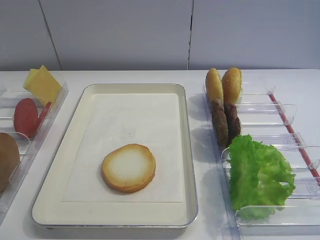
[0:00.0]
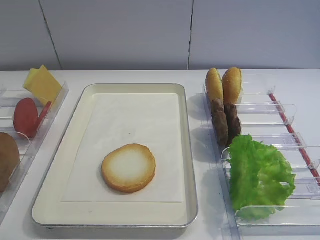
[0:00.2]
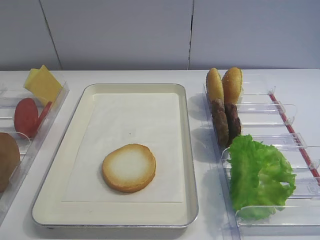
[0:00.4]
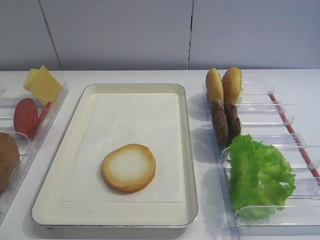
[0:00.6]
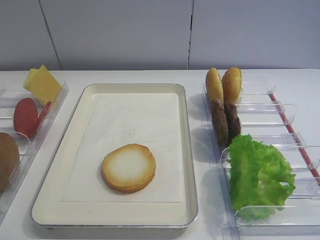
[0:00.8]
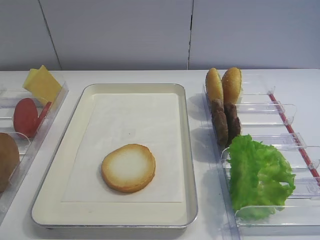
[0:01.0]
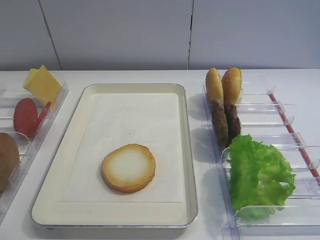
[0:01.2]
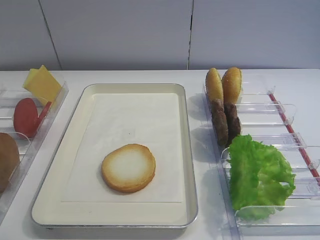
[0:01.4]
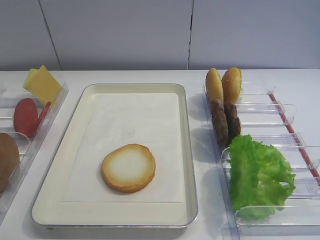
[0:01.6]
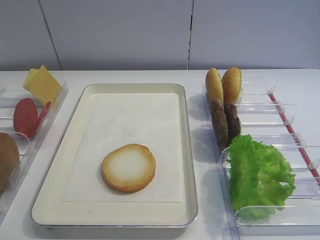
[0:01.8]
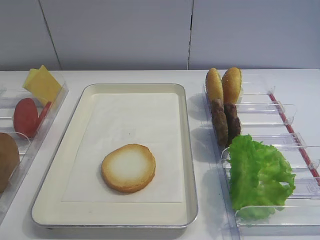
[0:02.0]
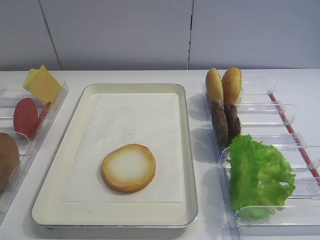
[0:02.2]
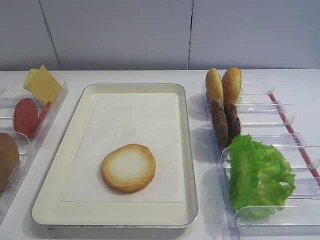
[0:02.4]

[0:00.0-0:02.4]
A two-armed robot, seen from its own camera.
0:01.2 to 0:02.4: Neither gripper changes place.

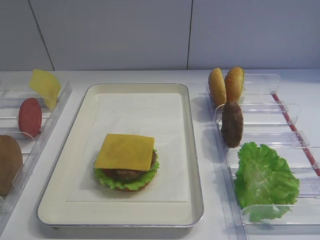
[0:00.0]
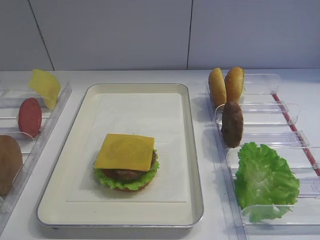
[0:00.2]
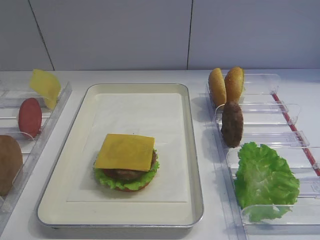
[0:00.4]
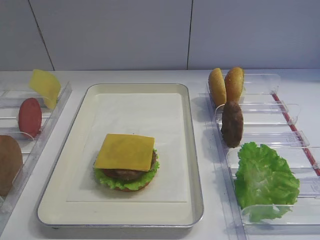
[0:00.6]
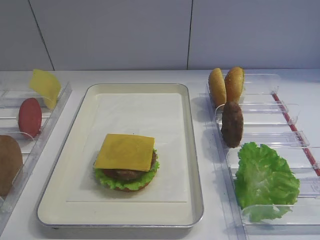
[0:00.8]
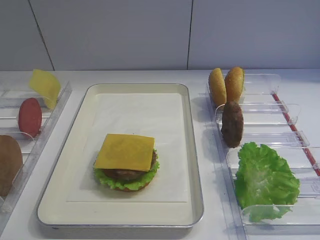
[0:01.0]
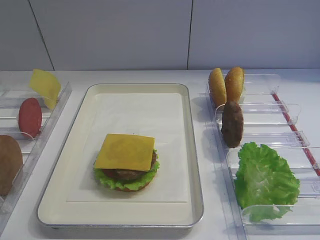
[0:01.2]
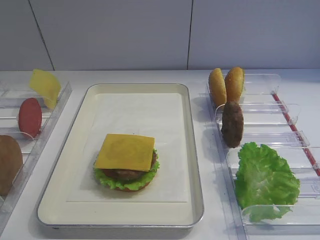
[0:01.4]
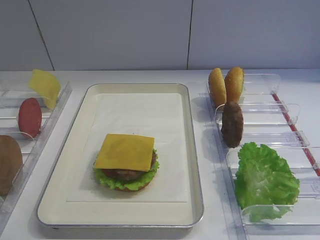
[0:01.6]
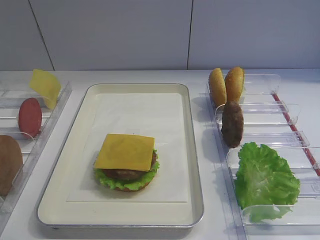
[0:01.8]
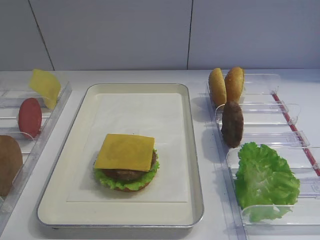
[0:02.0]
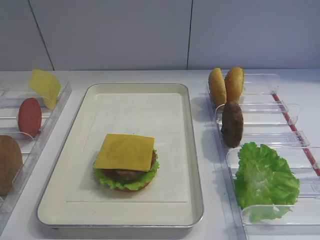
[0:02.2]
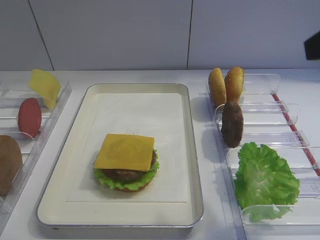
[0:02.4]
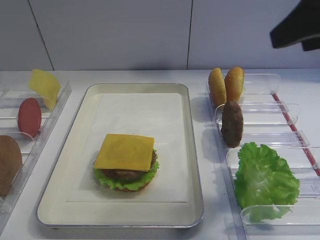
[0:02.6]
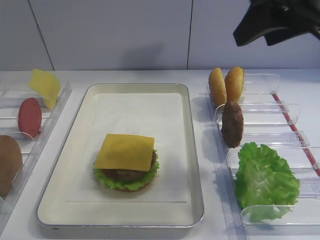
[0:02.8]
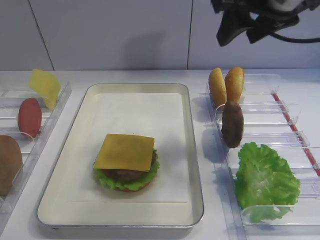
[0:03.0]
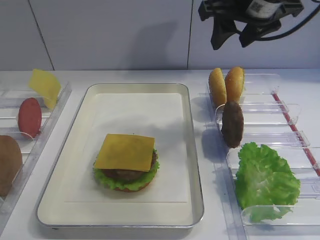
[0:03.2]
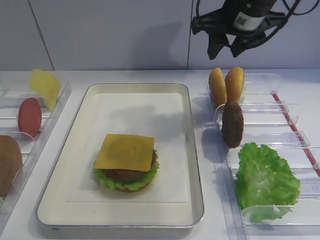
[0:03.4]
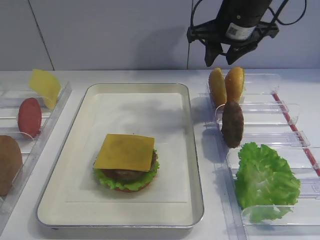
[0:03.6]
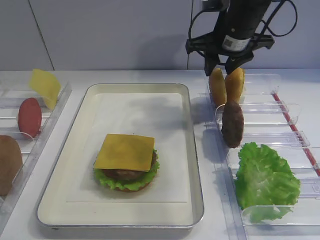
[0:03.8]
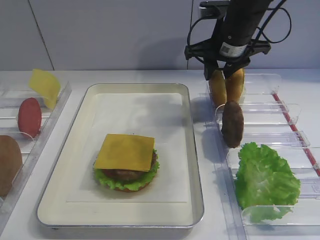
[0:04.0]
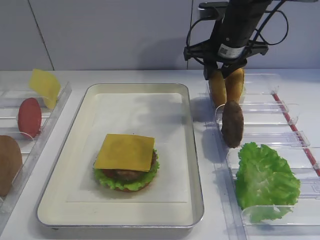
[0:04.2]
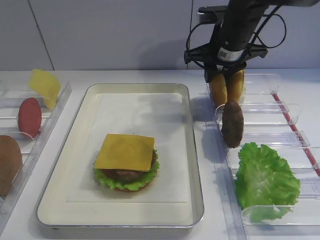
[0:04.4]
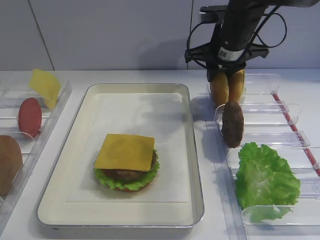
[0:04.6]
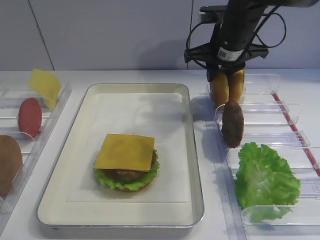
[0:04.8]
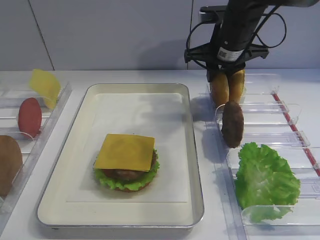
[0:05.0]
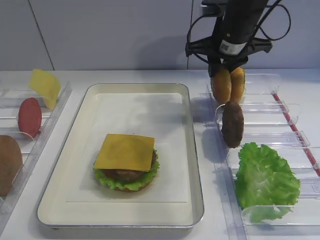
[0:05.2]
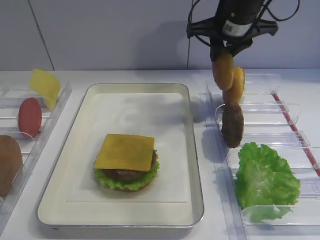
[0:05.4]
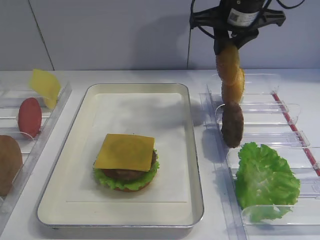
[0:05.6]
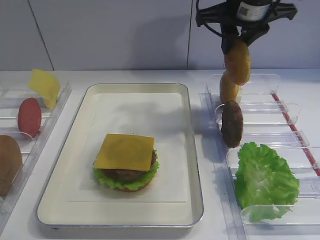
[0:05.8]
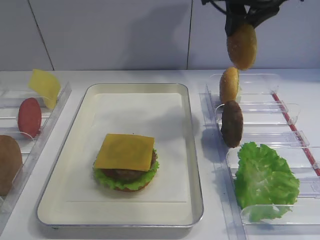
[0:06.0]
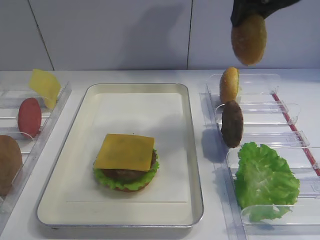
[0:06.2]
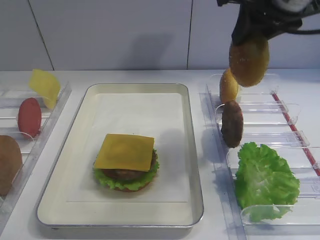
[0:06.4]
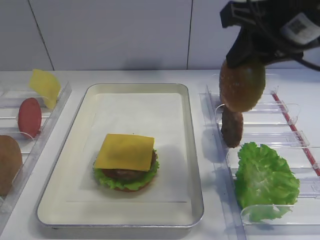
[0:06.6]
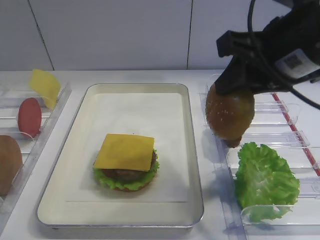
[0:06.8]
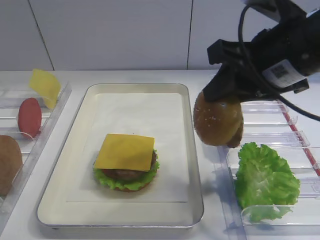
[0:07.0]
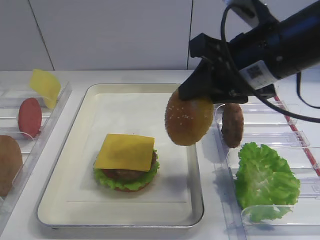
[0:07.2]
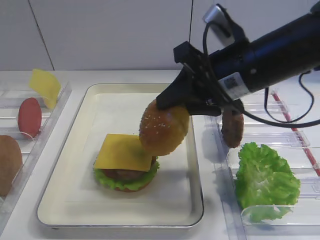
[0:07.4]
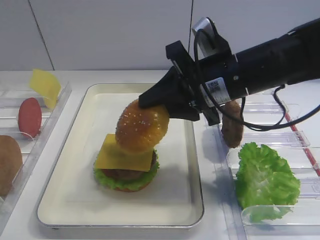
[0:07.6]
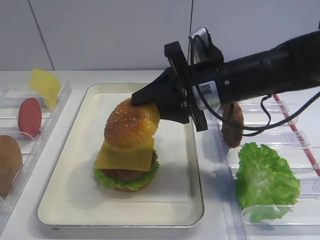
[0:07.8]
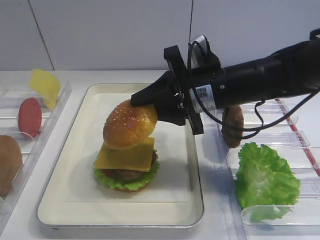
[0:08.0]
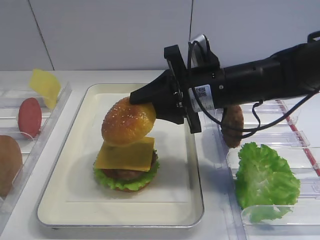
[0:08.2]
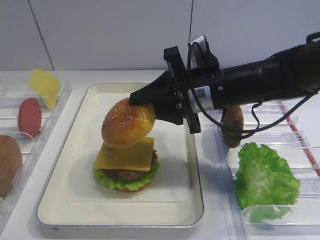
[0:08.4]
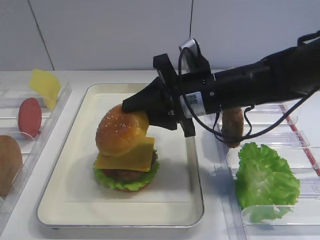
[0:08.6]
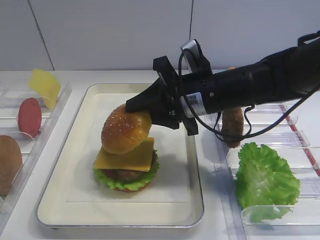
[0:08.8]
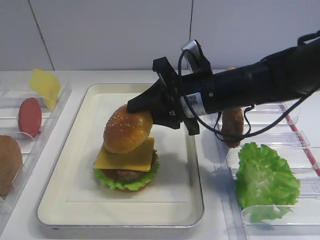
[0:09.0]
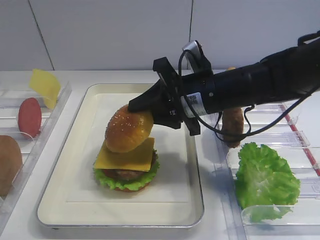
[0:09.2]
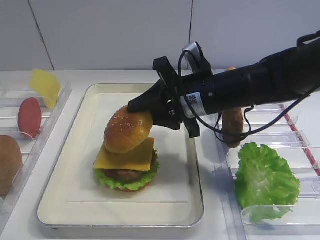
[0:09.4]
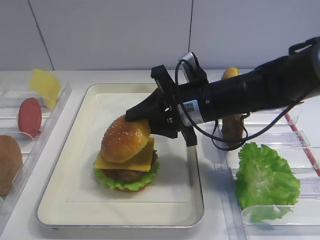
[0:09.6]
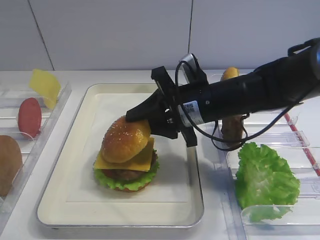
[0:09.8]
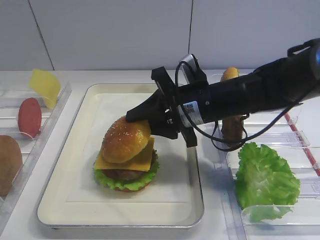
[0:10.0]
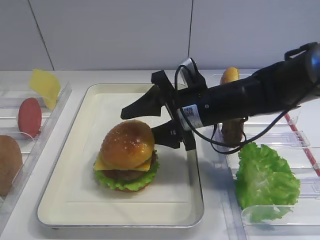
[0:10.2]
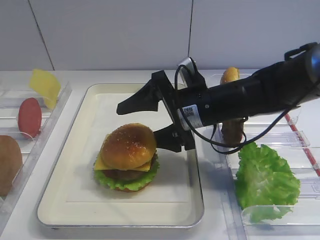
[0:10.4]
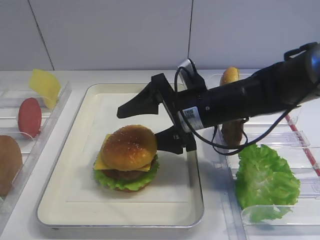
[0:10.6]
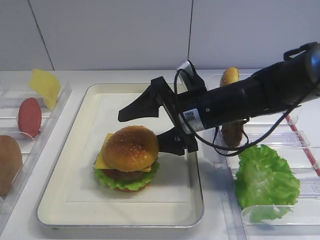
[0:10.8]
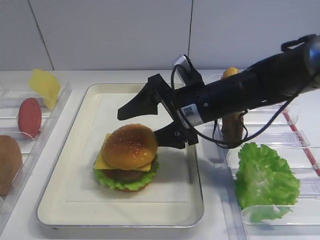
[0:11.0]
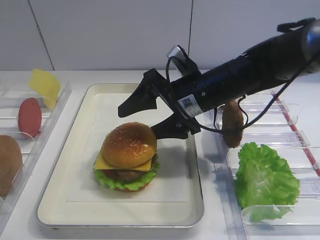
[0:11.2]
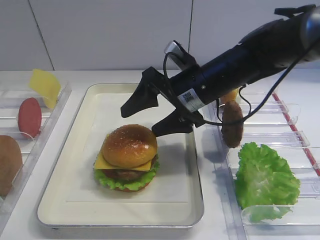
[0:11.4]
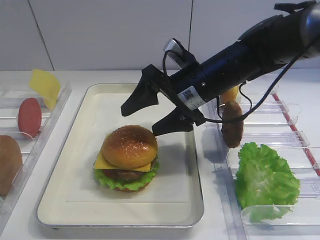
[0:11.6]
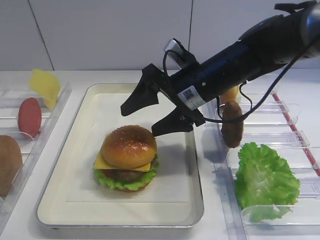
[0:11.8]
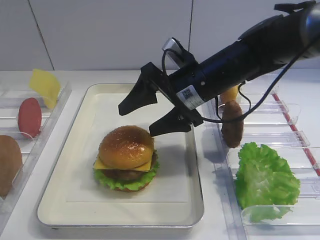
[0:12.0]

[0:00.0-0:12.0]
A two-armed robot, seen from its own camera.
Step, 0:00.0 to 0:05.4: Pick up the hamburger lid with the right gripper.
0:01.6 to 0:03.0: The right gripper is displaced forward by some 30 cm.
0:03.0 to 0:04.4: The right gripper shifts approximately 20 cm downward and forward.
0:04.4 to 0:06.0: The right gripper heads upward, covering roughly 10 cm.
0:06.0 to 0:07.6: The right gripper heads downward and backward, covering approximately 15 cm.
0:07.6 to 0:09.0: The right gripper shifts by approximately 5 cm.
0:09.0 to 0:10.4: The right gripper opens.

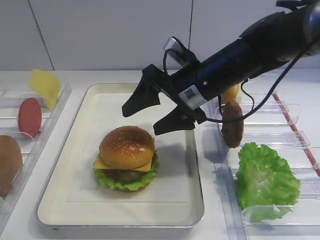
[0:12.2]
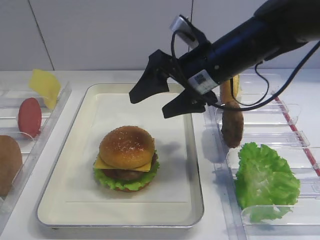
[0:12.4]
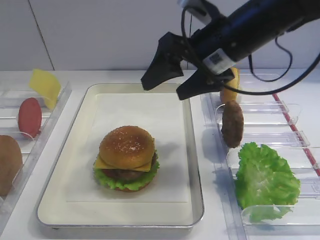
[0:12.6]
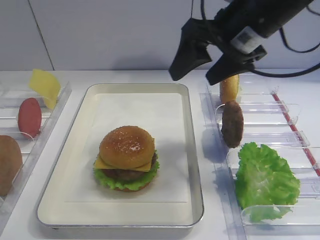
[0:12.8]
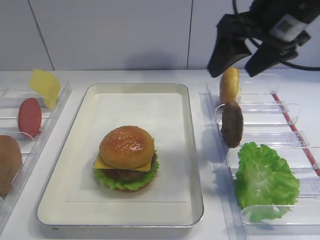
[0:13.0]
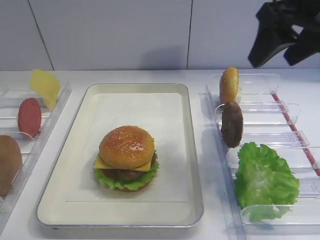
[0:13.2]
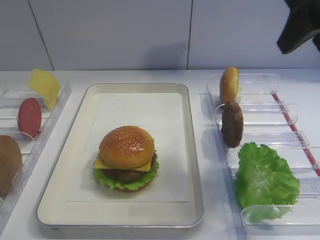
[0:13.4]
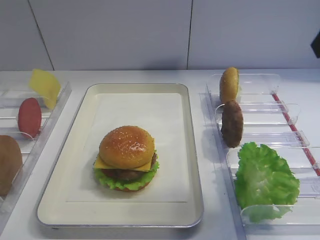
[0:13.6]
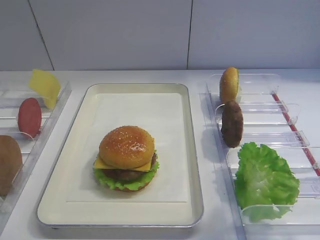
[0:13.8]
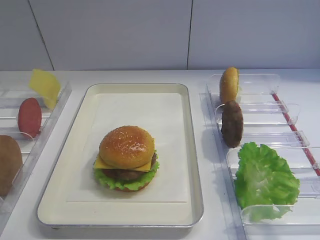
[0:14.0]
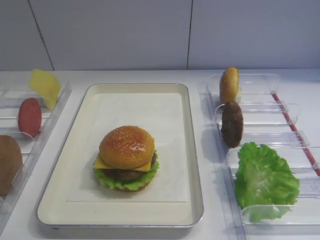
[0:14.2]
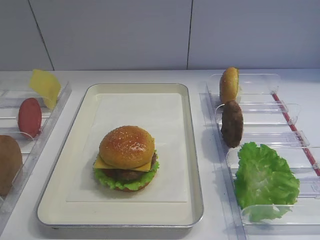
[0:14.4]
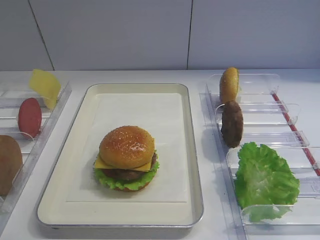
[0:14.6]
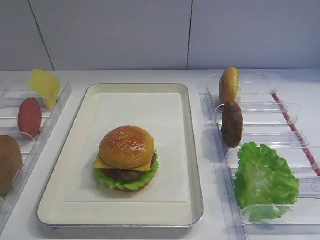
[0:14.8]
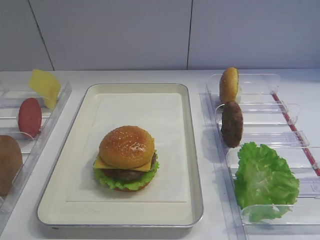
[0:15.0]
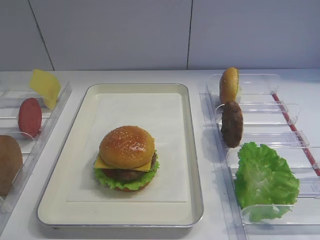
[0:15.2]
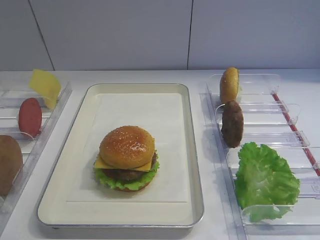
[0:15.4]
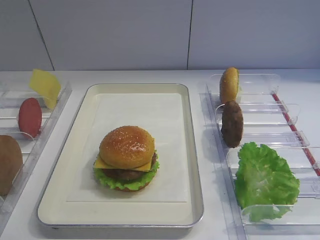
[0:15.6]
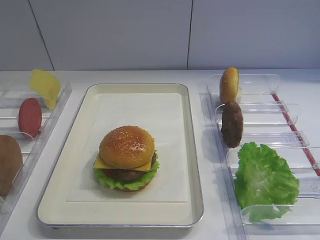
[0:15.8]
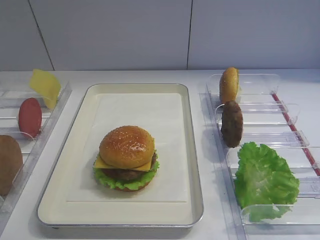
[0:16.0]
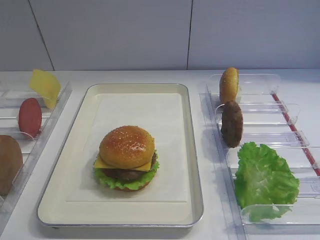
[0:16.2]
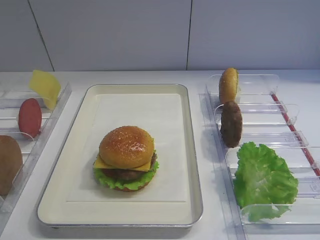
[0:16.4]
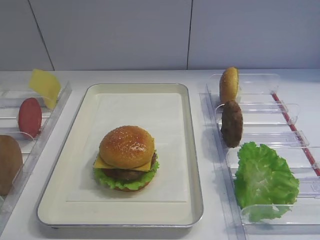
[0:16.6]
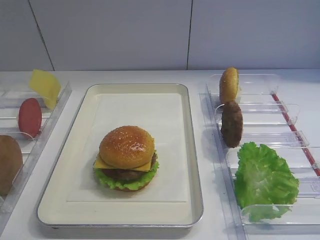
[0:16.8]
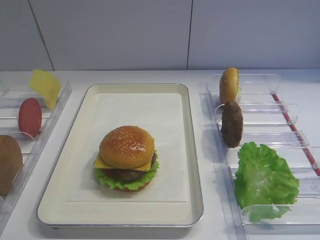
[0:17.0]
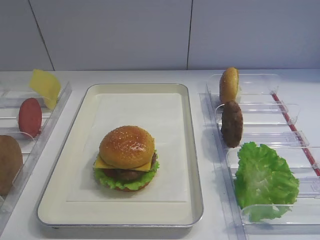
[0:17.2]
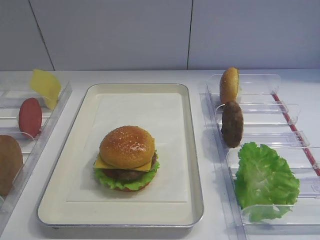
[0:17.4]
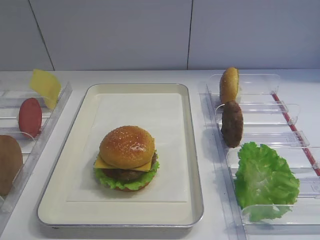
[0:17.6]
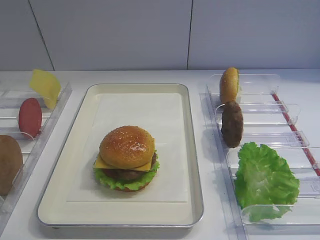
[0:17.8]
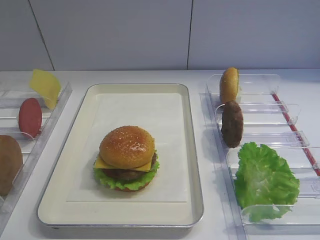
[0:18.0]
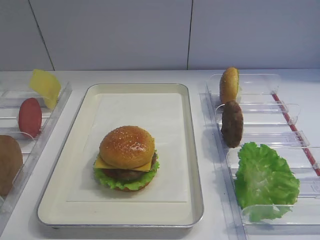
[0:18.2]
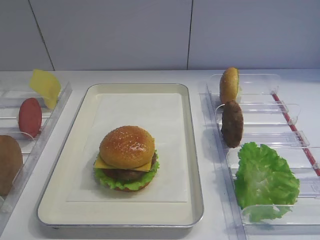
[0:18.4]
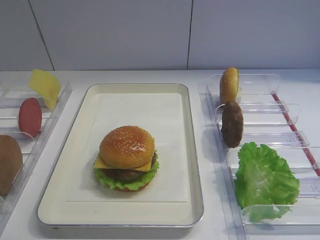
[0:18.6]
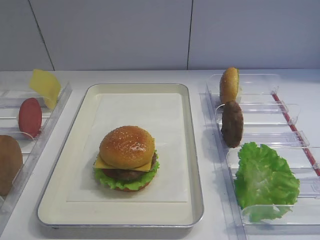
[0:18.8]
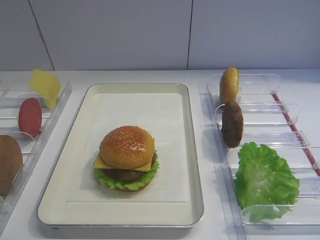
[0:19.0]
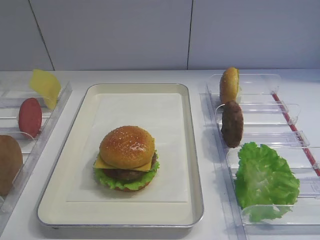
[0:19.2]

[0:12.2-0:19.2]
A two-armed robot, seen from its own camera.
0:12.2 to 0:13.6: The right gripper is displaced upward, to the right and backward by roughly 25 cm, and closes its fingers.
0:13.6 to 0:15.0: The right gripper moves backward and downward, approximately 25 cm, and closes its fingers.
0:16.4 to 0:17.8: Both grippers stay about where they are.

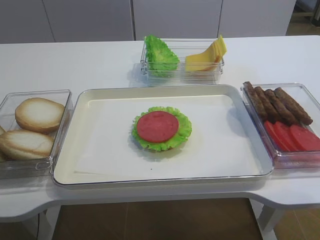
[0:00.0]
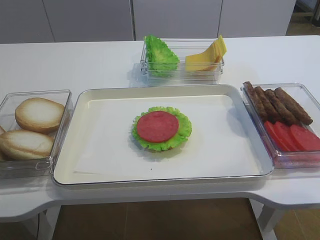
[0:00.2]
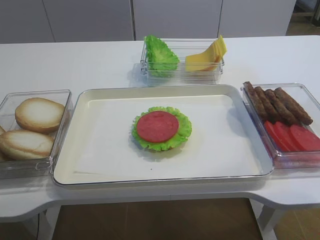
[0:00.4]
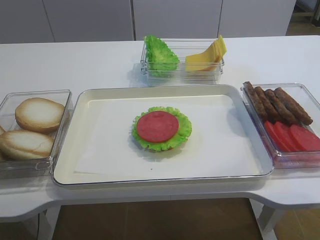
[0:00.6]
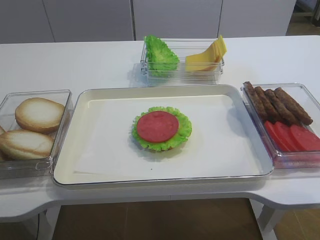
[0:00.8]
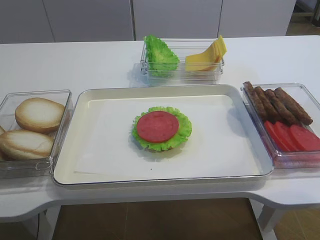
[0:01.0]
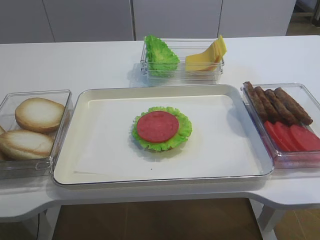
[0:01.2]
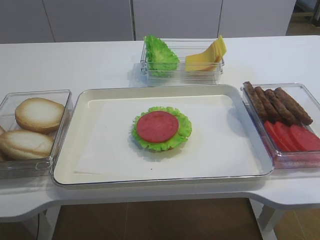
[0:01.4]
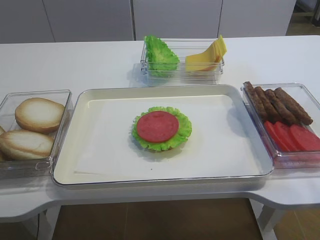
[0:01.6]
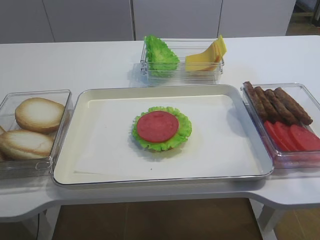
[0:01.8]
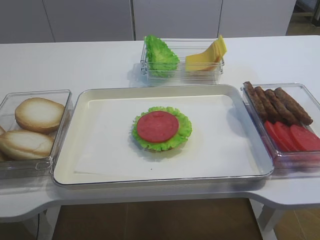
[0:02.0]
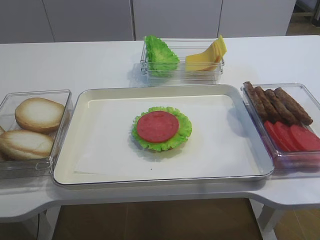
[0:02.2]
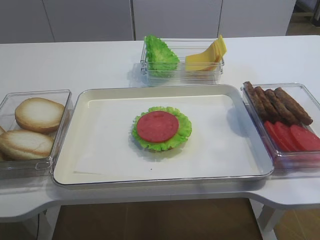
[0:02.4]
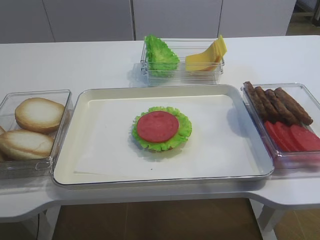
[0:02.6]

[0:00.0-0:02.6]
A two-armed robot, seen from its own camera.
0:01.2 to 0:02.6: The right gripper travels forward and upward by roughly 15 cm.
